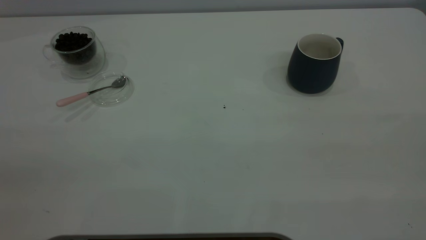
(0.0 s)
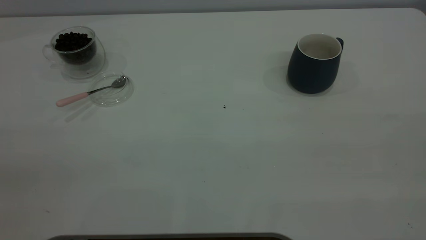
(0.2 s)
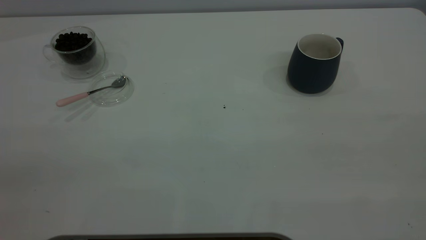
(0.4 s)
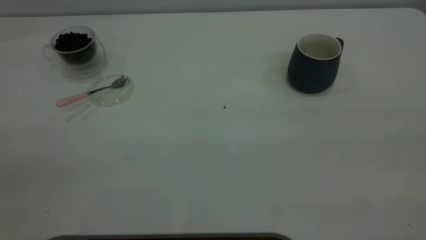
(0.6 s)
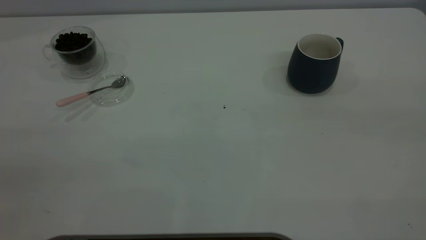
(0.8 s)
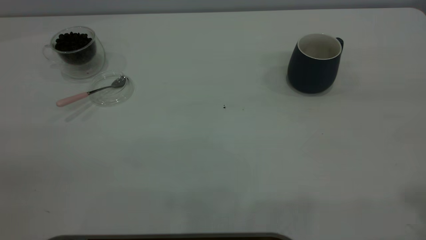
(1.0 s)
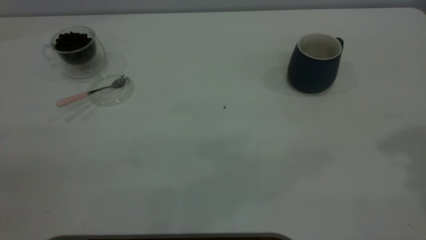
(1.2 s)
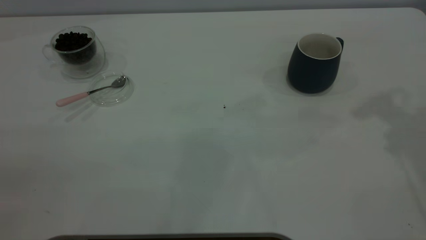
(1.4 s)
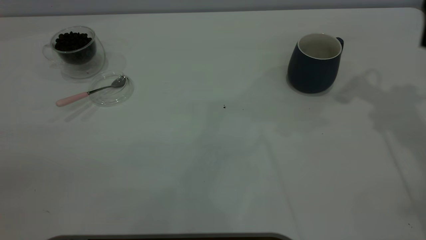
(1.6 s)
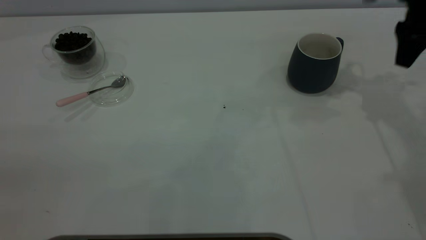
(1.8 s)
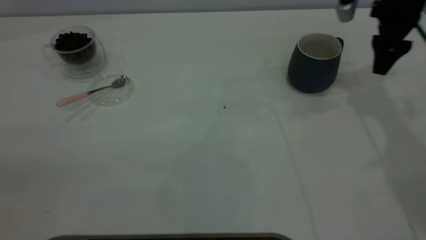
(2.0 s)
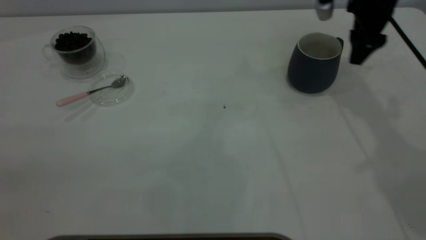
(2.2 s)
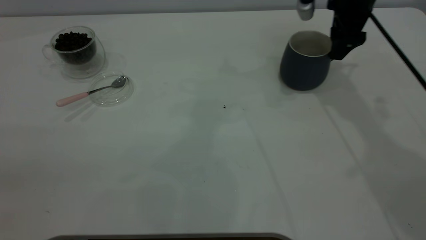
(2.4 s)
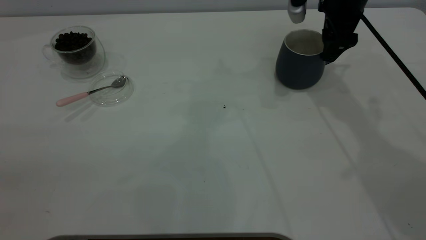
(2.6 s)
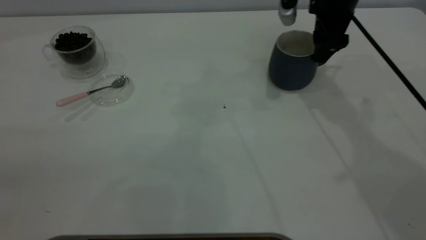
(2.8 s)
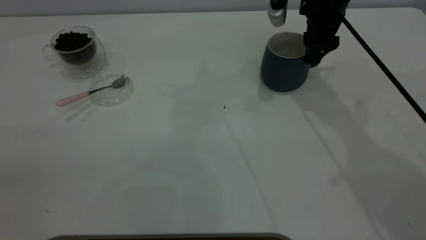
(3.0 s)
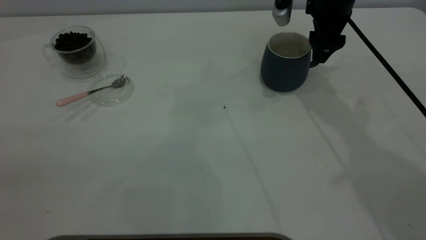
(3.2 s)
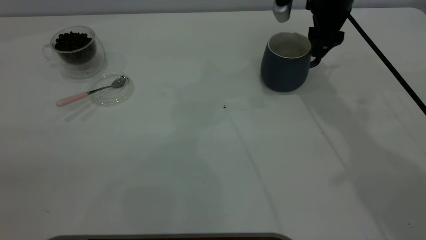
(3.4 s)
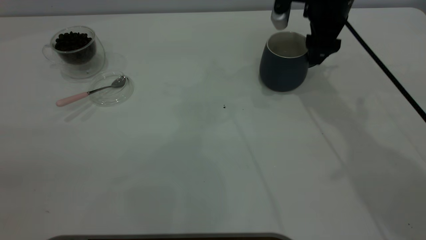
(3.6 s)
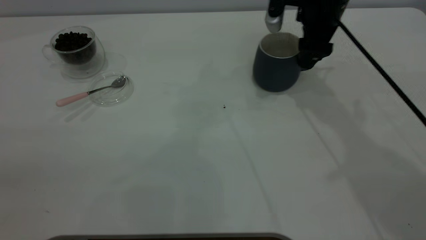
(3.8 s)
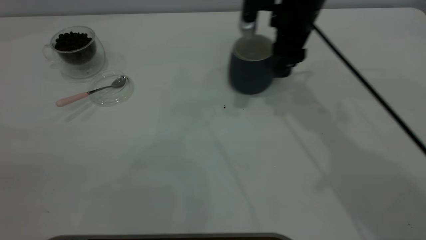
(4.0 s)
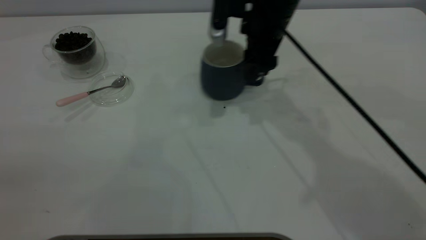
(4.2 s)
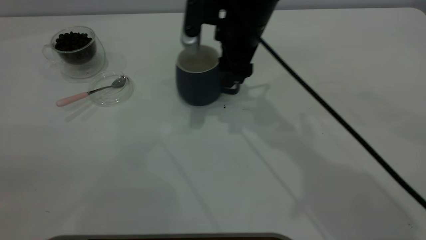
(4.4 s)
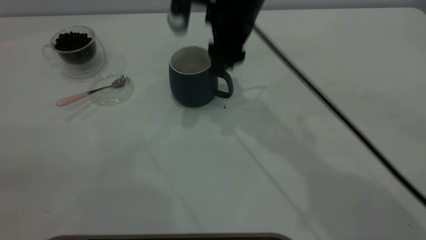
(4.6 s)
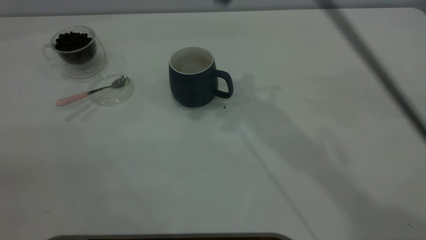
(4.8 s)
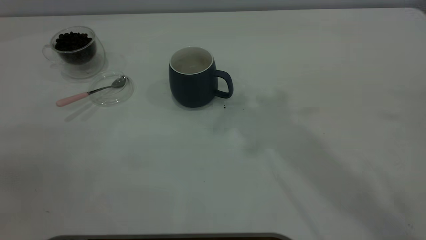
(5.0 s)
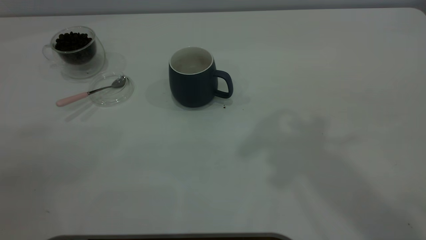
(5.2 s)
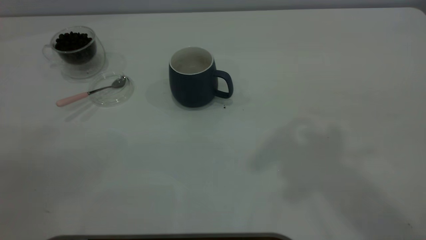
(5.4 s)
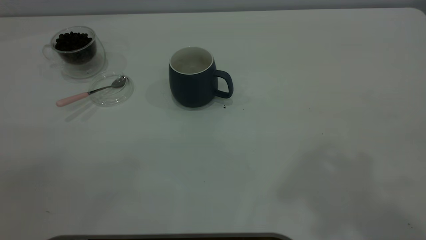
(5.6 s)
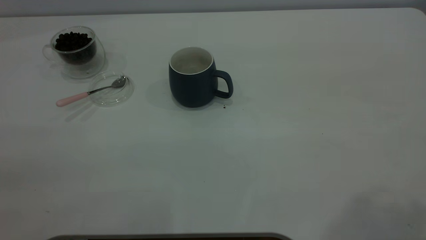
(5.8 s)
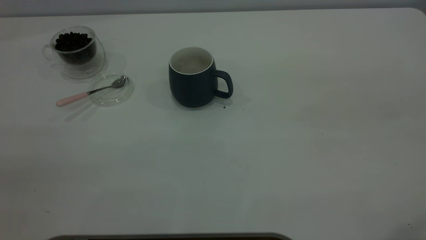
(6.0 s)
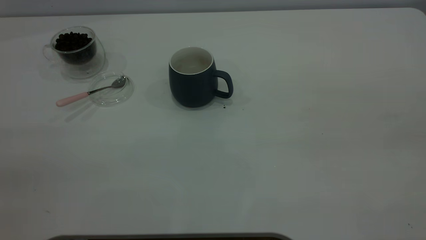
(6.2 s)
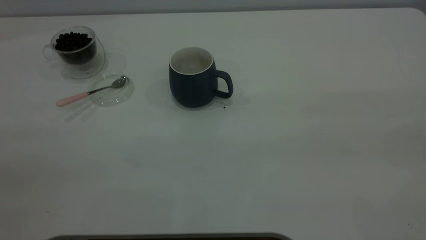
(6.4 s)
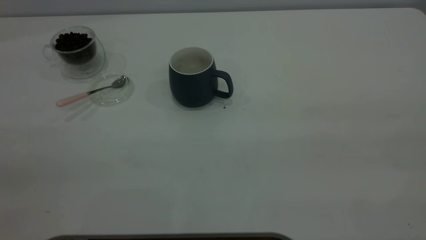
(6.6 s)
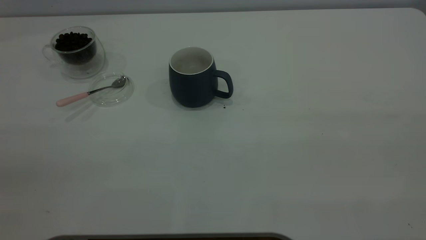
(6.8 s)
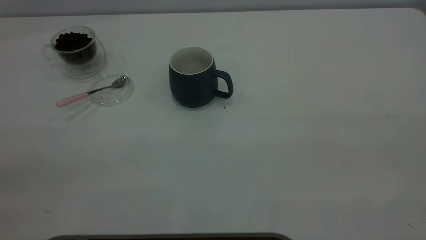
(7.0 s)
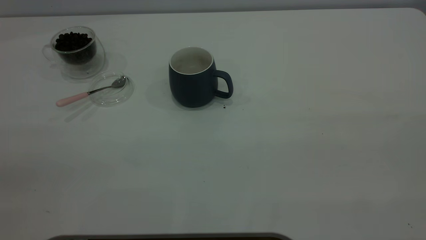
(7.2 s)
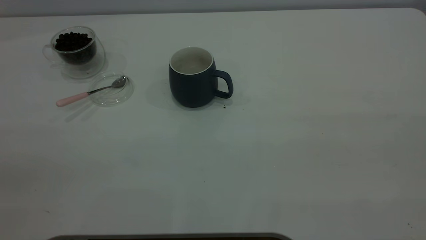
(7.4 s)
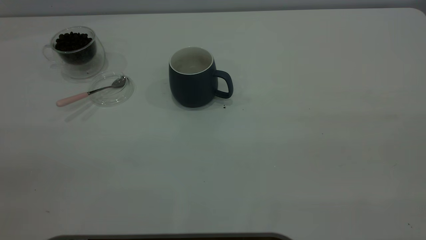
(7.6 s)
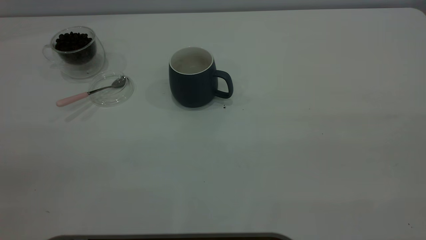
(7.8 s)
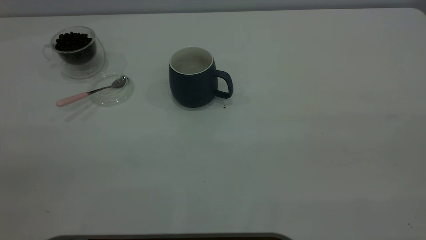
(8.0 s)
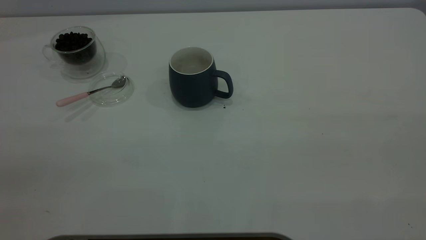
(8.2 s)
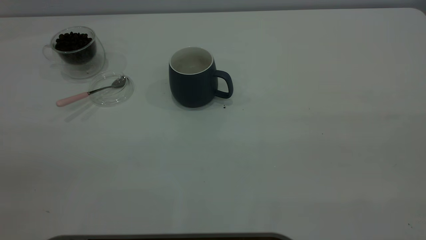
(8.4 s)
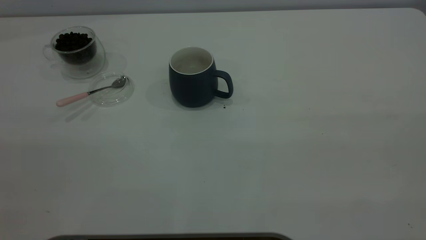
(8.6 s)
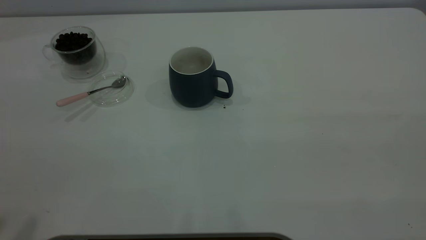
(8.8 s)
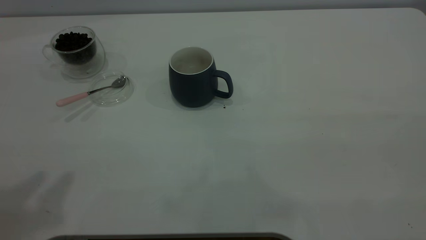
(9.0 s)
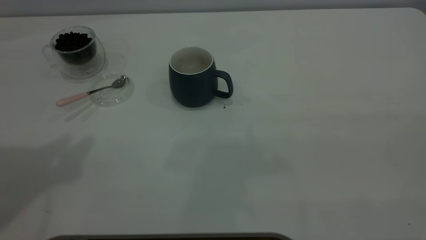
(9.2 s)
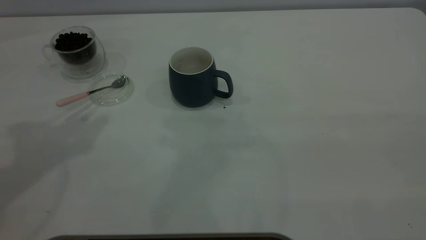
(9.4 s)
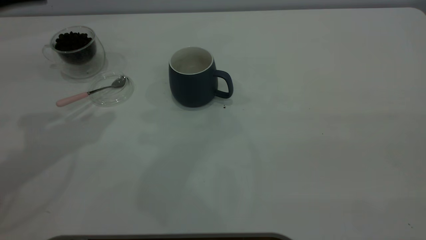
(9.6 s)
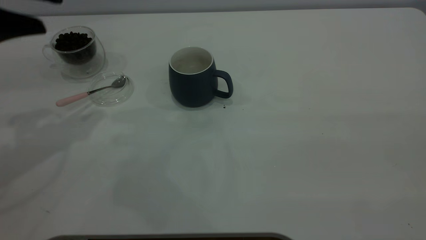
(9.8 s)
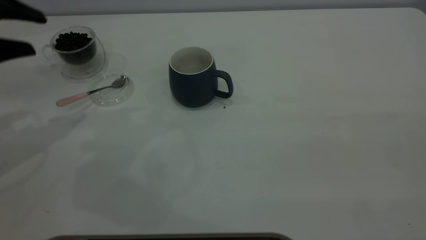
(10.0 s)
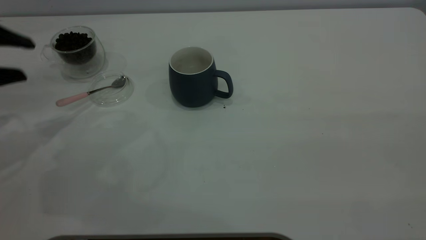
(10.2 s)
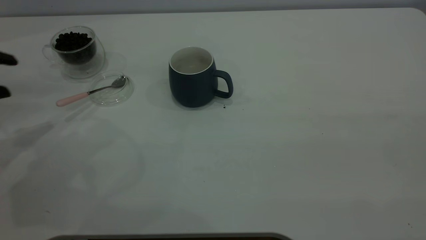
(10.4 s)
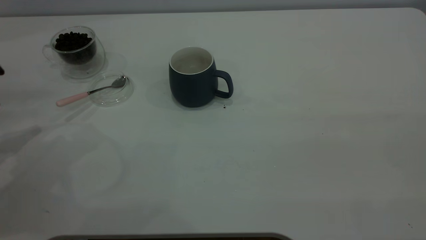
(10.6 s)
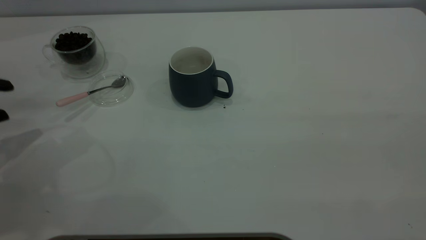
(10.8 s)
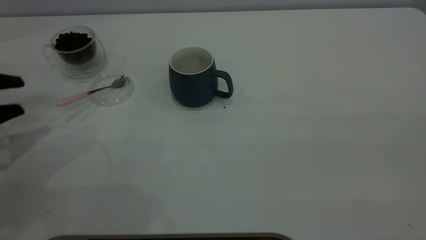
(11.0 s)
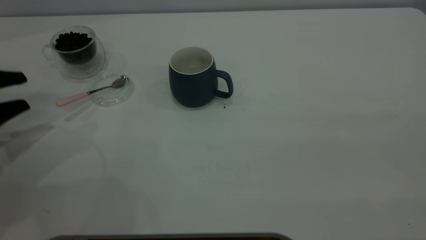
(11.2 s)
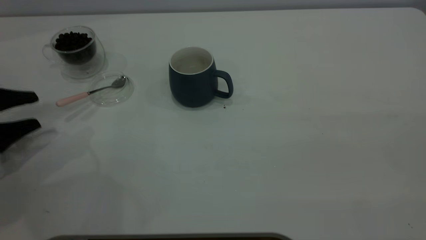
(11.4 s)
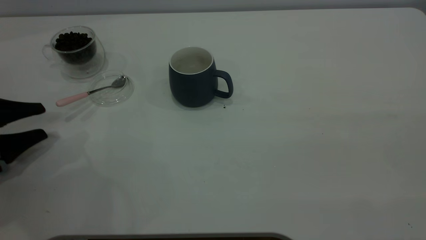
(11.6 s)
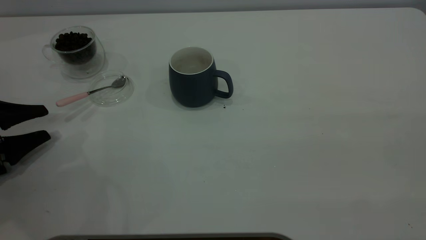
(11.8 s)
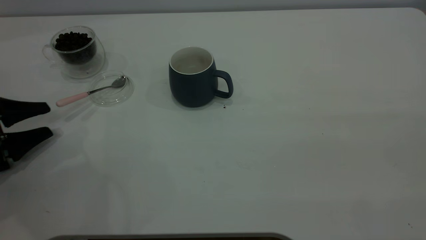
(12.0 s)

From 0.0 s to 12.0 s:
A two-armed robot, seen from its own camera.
Task of the whole recording: the right gripper place the grey cup in the center of the table, the left gripper take the pink spoon from the cup lid and scoop out the coffee beans from the coffee cup and put them into the grey cup, the left gripper put the spoon back into the cup lid.
Step, from 0.0 s to 4.6 s: Move the cup to the center of view.
From 1.6 s to 3.0 s: The right gripper goes roughly 15 cm to the left, downward and forward, and closes its fingers.
From 3.0 s to 4.4 s: The right gripper travels to the left by about 15 cm, and closes its fingers.
From 4.4 s to 6.0 s: The right gripper goes some 50 cm backward, upward and to the right.
From 10.4 s to 12.0 s: The left gripper travels downward by approximately 10 cm.

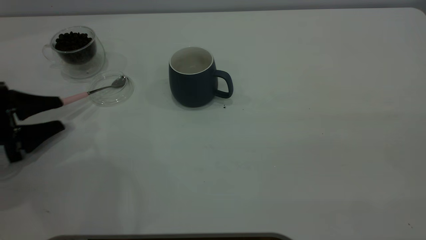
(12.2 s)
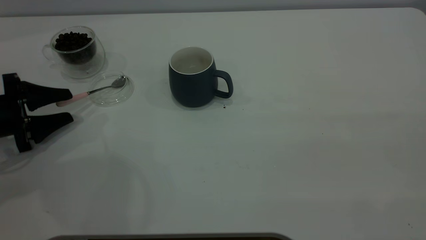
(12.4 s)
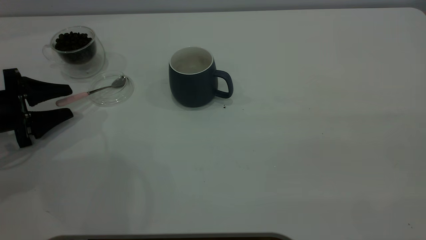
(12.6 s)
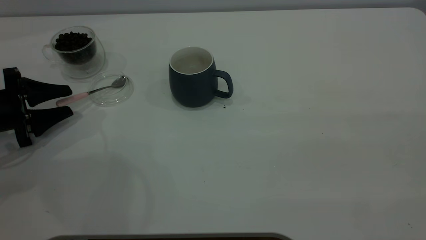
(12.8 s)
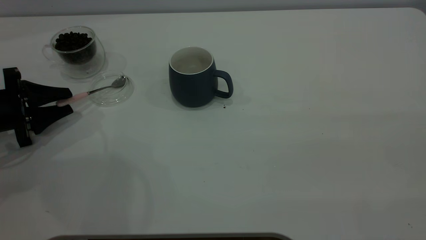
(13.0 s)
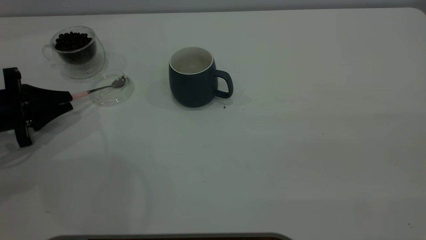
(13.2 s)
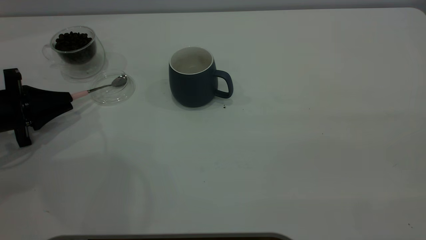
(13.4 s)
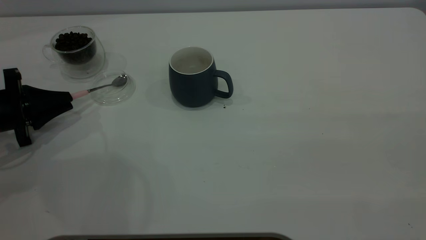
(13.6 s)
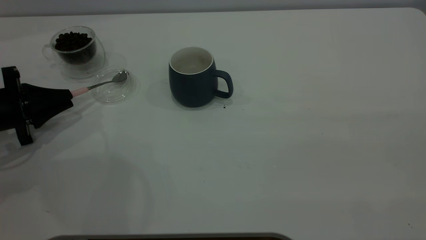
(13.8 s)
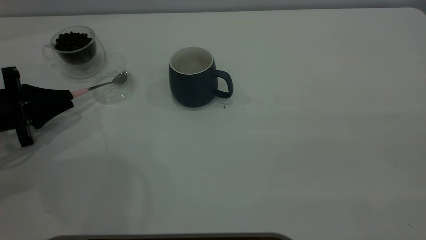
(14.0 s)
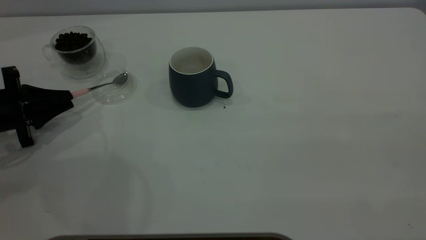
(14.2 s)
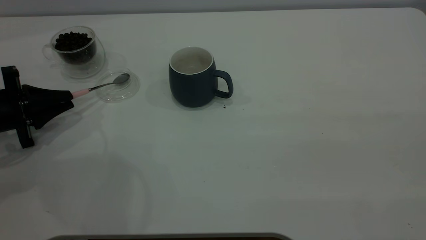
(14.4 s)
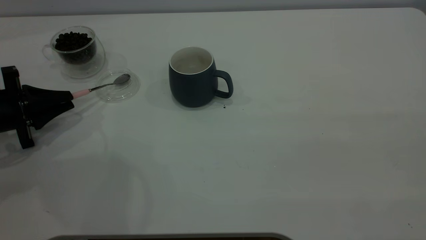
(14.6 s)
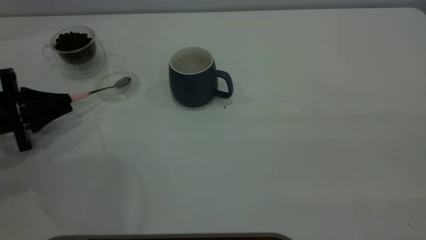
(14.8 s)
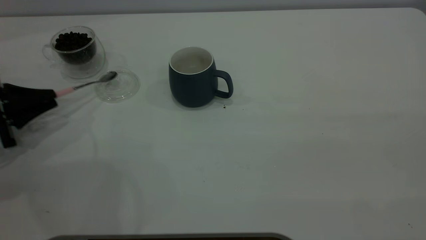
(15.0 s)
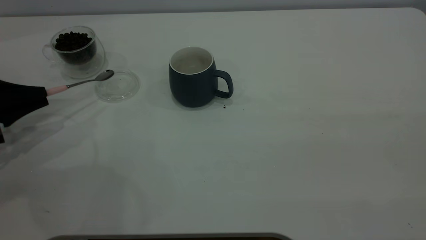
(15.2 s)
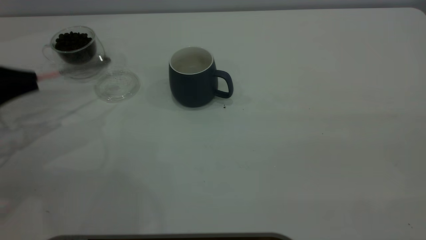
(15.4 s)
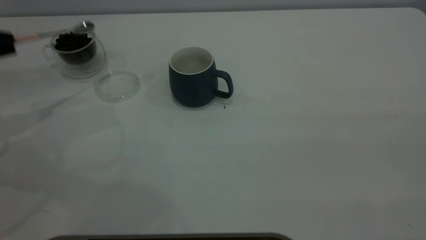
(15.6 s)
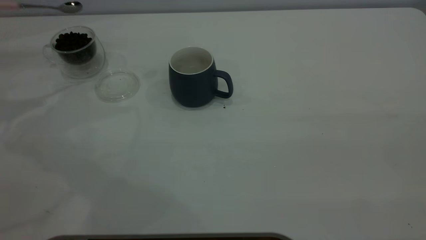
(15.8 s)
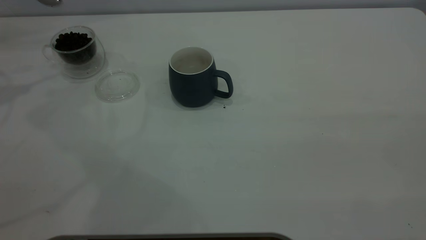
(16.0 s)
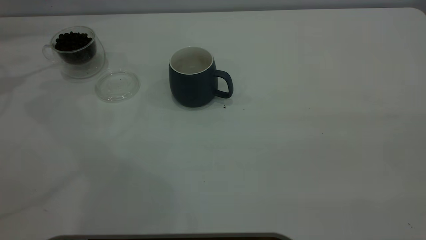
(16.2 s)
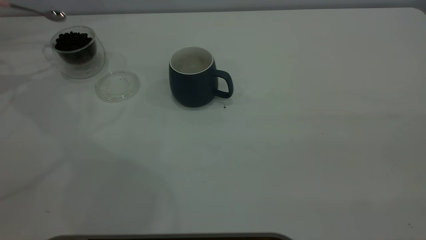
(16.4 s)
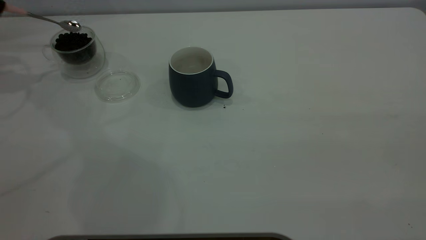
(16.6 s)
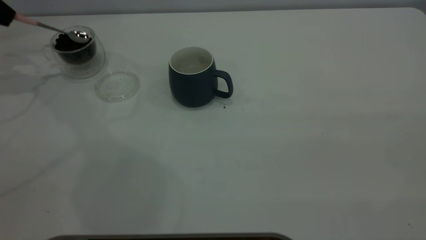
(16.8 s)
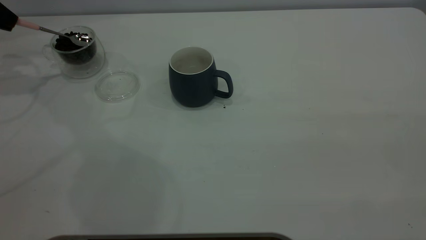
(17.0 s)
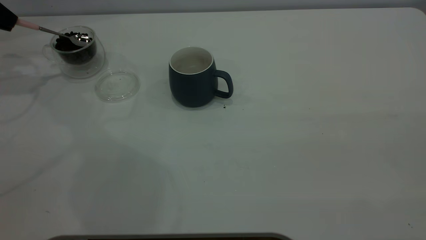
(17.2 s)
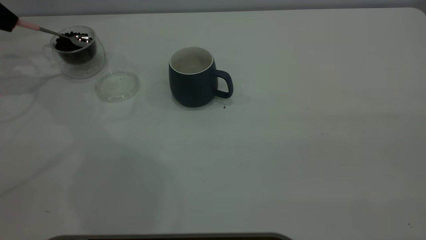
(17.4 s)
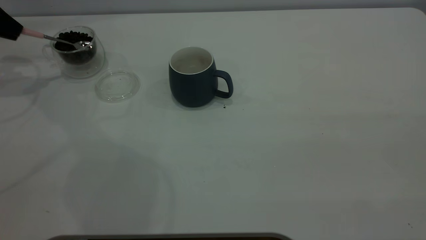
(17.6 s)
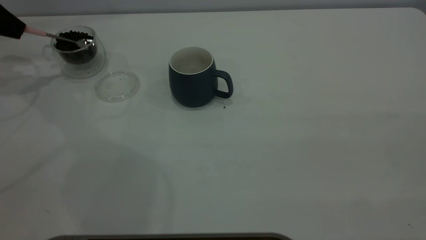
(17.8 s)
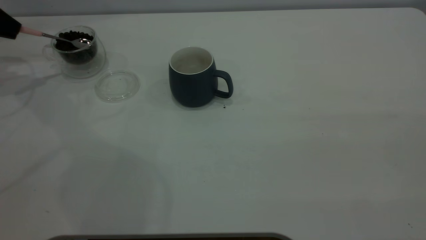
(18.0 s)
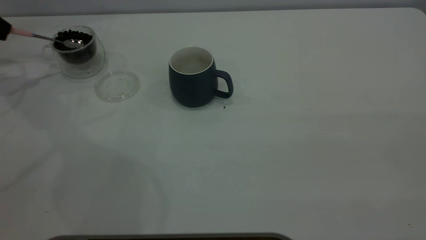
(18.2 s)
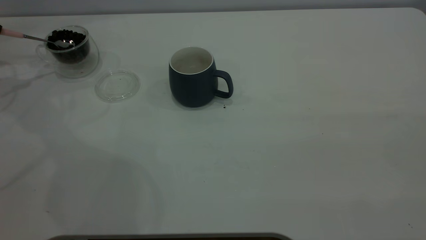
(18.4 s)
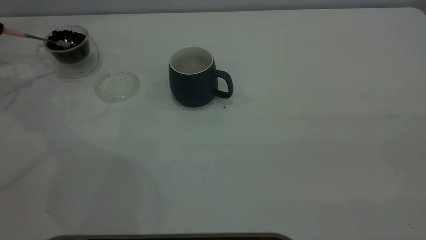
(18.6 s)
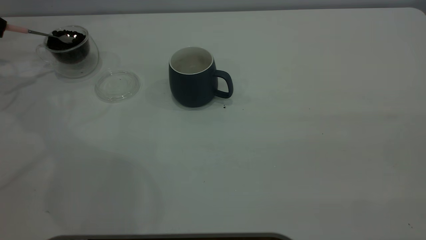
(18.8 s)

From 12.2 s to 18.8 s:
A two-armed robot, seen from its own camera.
Task of the whole recording: the right gripper place the grey cup in the center of the table, the left gripper take the pink spoon from the cup lid and scoop out the coffee beans from the coffee cup and put them into the grey cup, the left gripper put the spoon back into the cup lid.
Step, from 12.2 s to 15.2 s: Pick up the spoon.
From 12.2 s to 13.8 s: The left gripper closes up.
From 13.8 s to 15.4 s: The left gripper heads upward, covering about 5 cm.
From 15.4 s to 17.2 s: The left gripper goes some 20 cm forward and upward.
